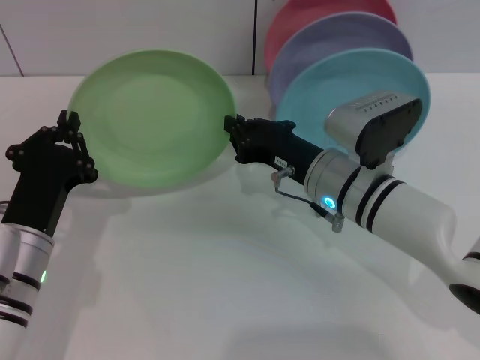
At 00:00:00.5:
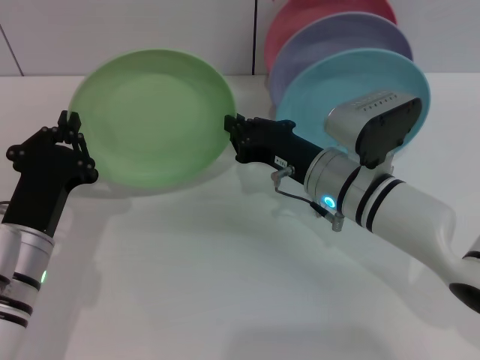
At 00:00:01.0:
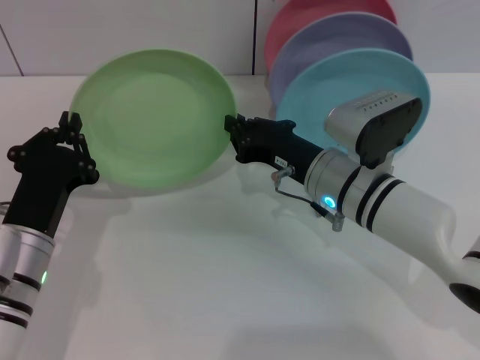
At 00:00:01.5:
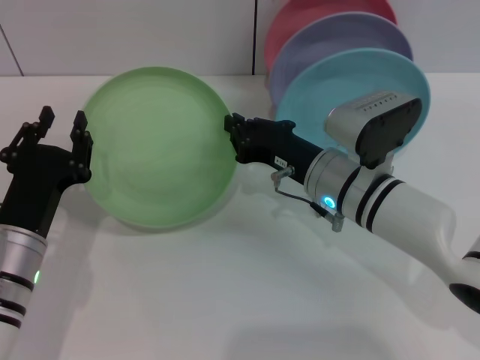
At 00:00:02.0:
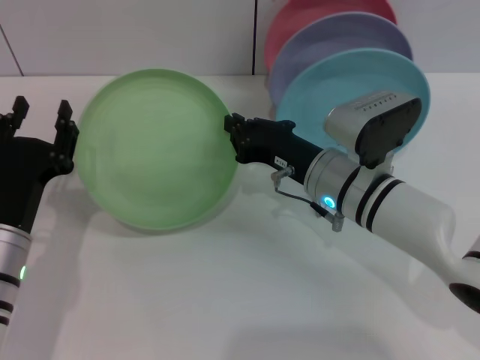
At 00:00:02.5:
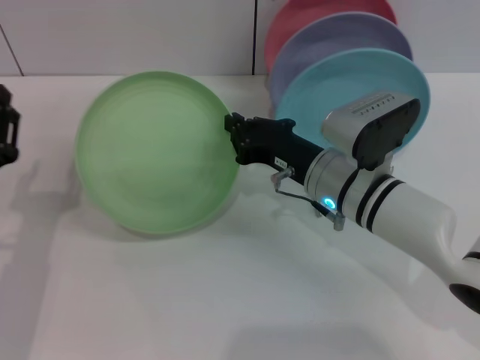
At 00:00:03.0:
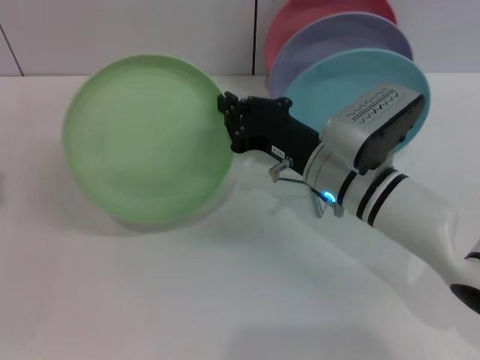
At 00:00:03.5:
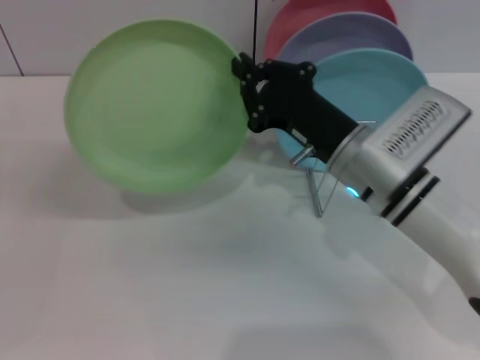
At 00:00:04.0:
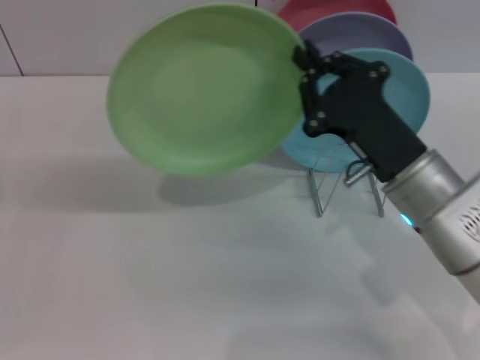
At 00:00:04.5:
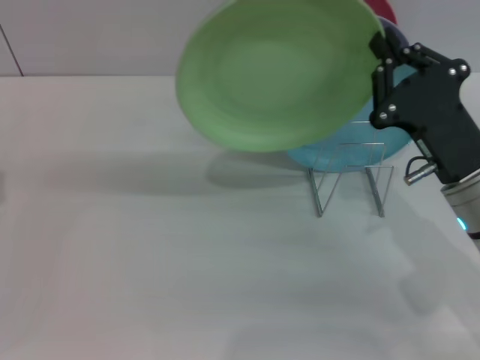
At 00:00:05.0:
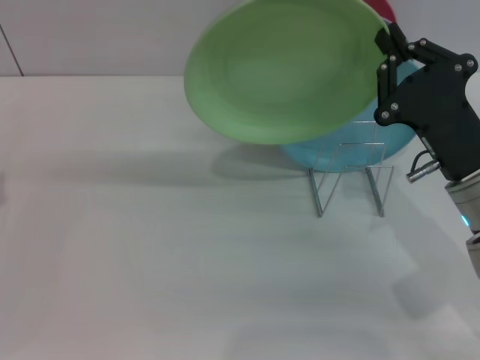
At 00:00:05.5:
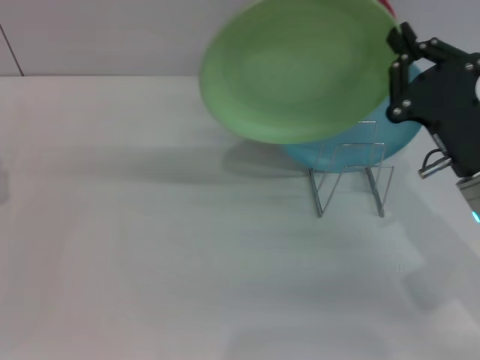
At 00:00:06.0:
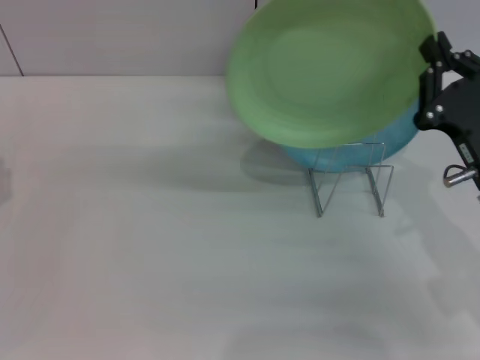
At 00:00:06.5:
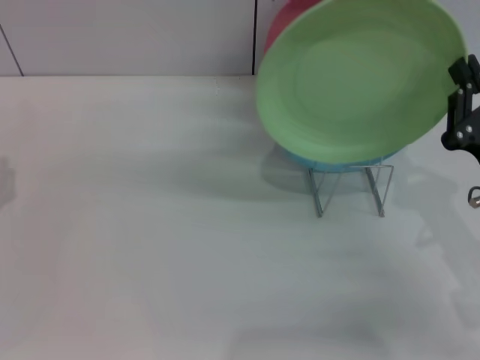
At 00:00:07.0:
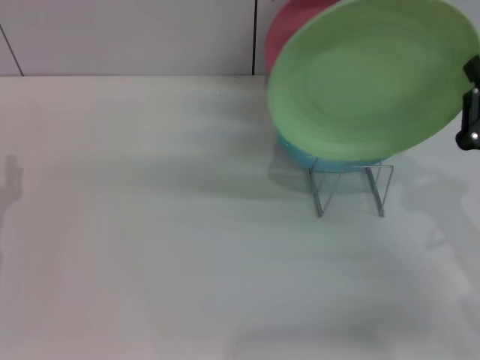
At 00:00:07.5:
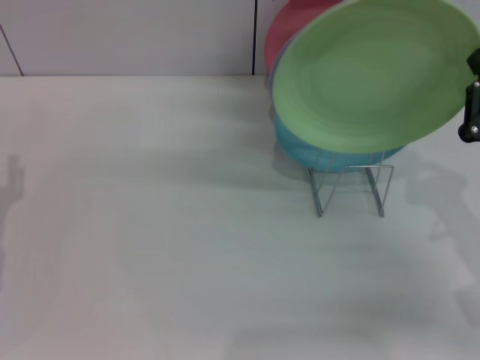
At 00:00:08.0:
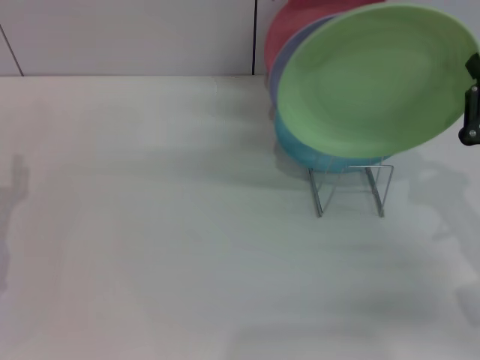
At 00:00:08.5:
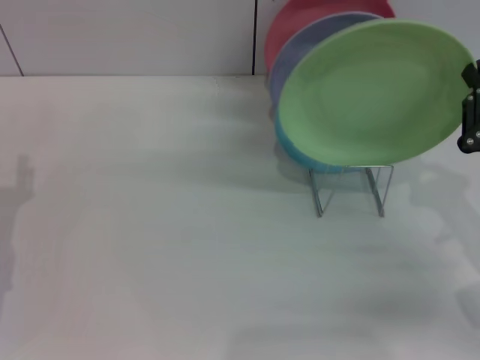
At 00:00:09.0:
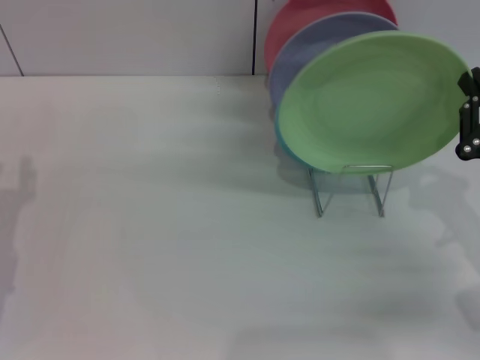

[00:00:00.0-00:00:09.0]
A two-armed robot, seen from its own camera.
Task of the whole recording: Grip the plate with one hand, pass it to the other, then set it on the shelf.
Step, 00:00:00.0 to 00:00:02.0: Pass the plate from the left gripper to the right gripper.
00:00:00.0 to 00:00:02.0: The left gripper opens its fingers.
00:00:02.0 to 00:00:04.5: The left gripper heads to the left, covering roughly 10 cm. The right gripper travels to the right and backward by approximately 10 cm.
00:00:04.5 to 00:00:07.0: The right gripper moves to the right, about 5 cm.
00:00:07.0 to 00:00:09.0: The grippers make only small movements.

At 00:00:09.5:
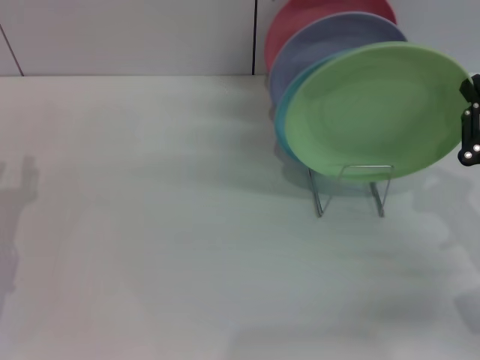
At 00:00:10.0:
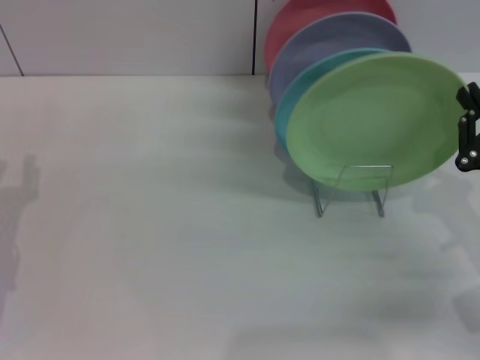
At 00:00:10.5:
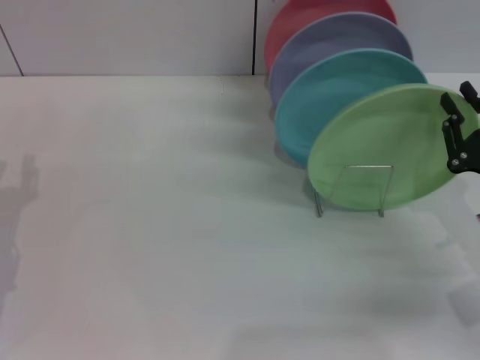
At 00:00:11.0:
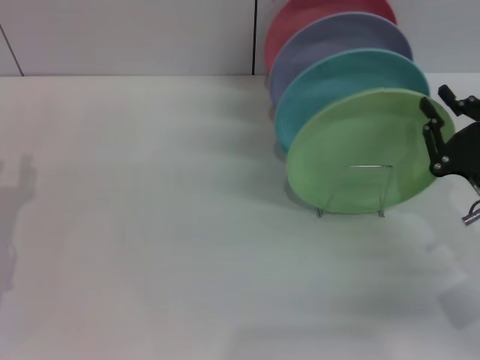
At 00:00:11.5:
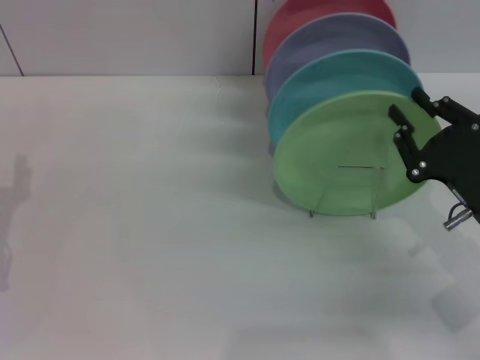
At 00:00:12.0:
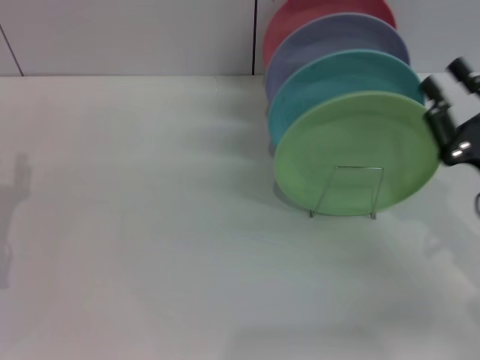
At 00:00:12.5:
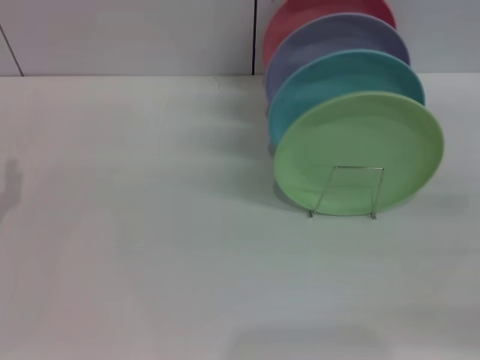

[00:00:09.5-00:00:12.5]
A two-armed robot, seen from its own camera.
Task of the whole recording: Grip the plate with one hand, pass it to the other, then set it on the shelf.
Step, 00:00:09.5 to 00:00:12.0: Place the plate on the shelf with the right gripper.
00:00:09.5 to 00:00:11.0: The grippers move only a little.
00:00:11.0 to 00:00:12.5: The right gripper shifts roughly 10 cm to the right.

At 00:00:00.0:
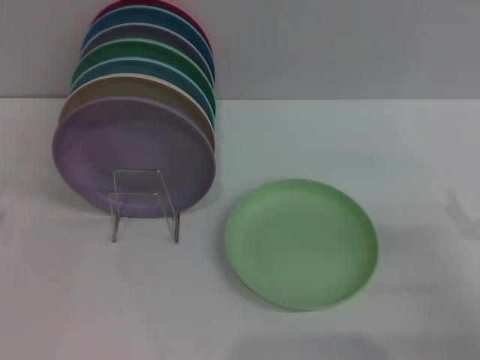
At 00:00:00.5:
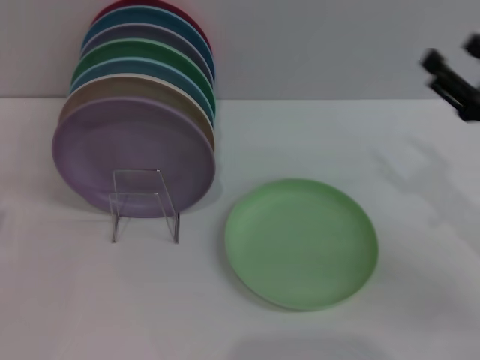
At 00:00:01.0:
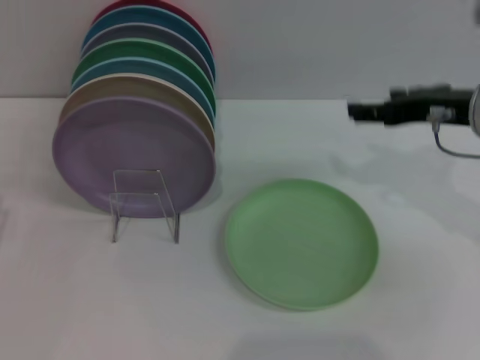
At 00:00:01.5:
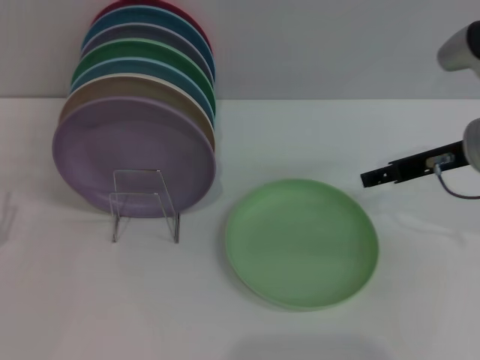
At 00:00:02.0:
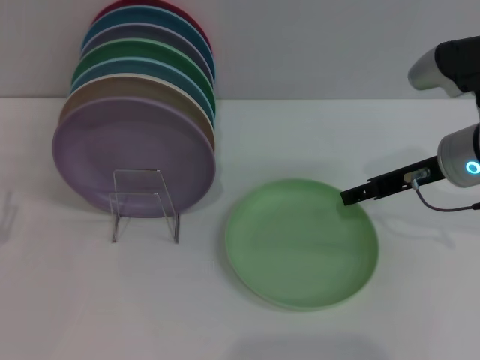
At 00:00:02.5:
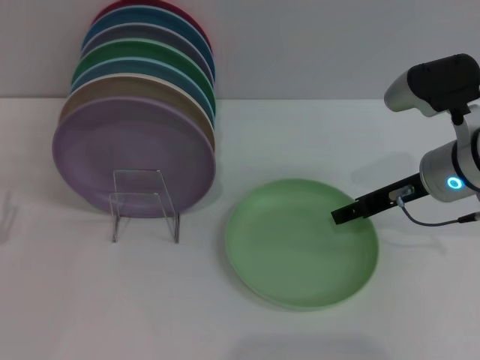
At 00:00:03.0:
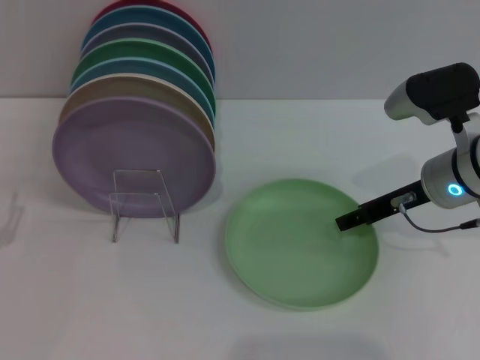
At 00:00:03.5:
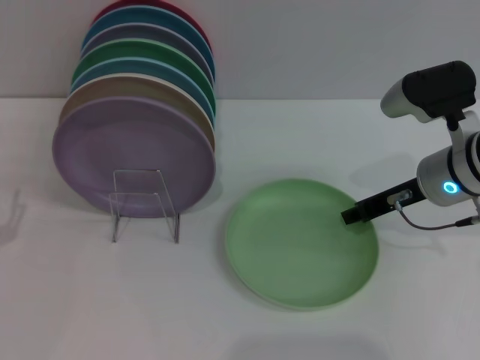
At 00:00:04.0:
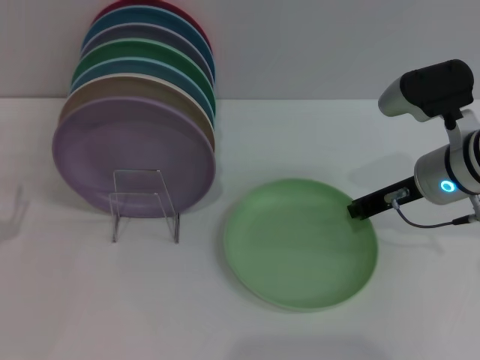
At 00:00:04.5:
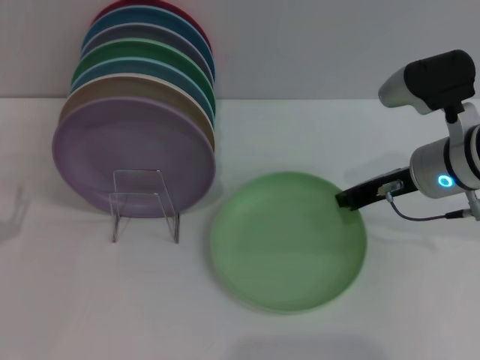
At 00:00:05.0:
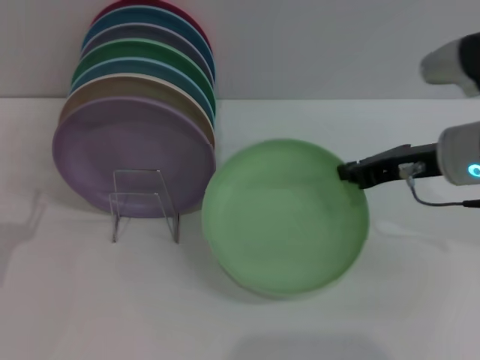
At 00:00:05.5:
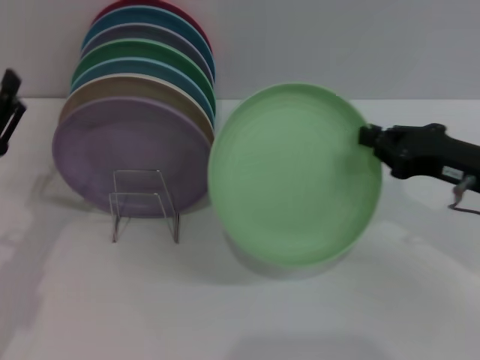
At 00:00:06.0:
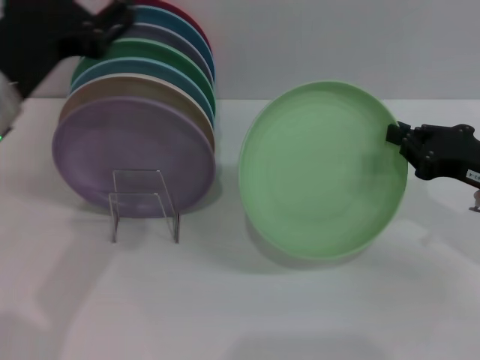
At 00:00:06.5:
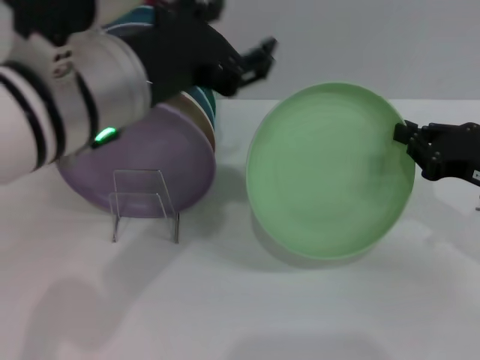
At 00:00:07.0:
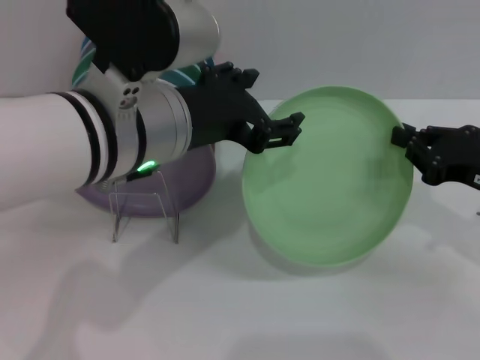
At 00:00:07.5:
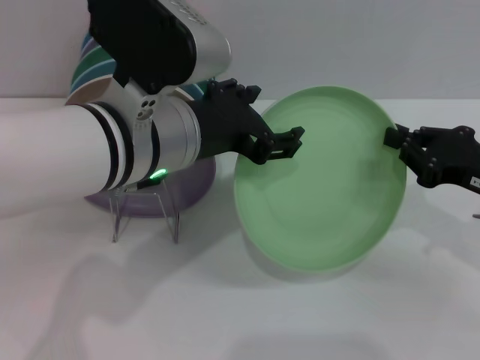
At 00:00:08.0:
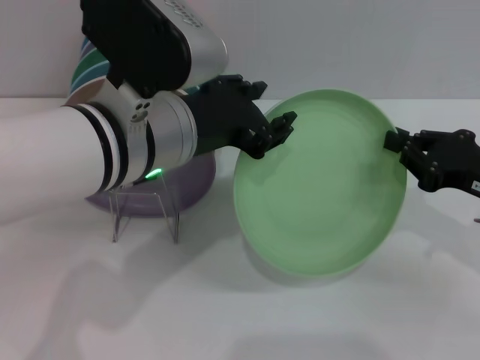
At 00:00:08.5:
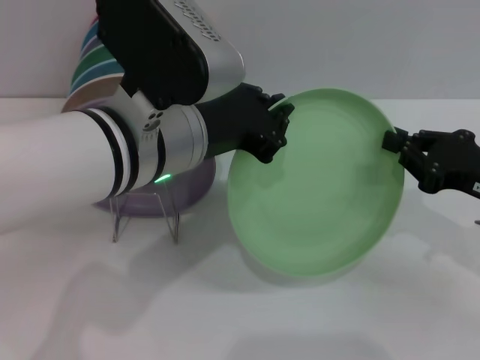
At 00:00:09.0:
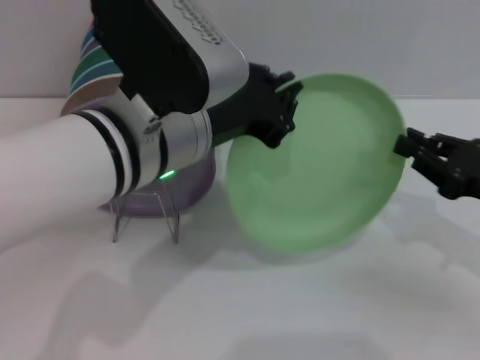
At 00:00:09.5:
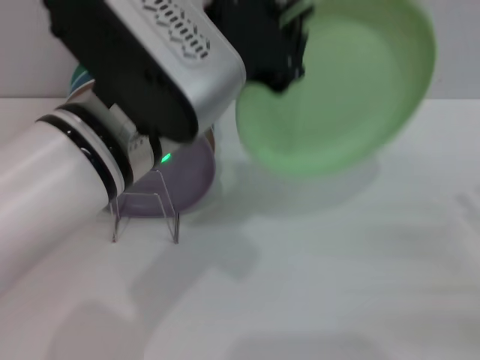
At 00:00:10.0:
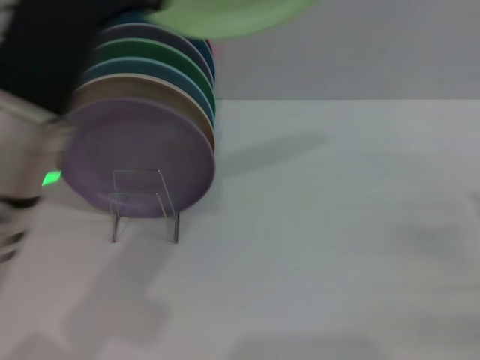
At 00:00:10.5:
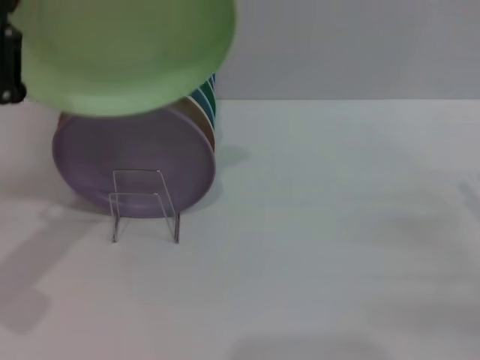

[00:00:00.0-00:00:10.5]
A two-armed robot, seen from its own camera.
Task of the whole recording: Grip the plate with one hand, pass it to the other, then set it on the shelf.
Step, 00:00:00.0 to 00:00:05.0: Pick up the plate with the right gripper.
Step, 00:00:05.5 to 00:00:09.0: Pass the plate from the right gripper to the left gripper.
00:00:00.0 to 00:00:02.0: The right gripper heads forward, to the left and upward, covering approximately 20 cm.
00:00:02.0 to 00:00:04.0: The right gripper closes.
00:00:04.0 to 00:00:06.5: The right gripper shifts roughly 10 cm to the right and backward. The left gripper goes some 30 cm upward and to the right.
00:00:06.5 to 00:00:08.5: The left gripper ends up approximately 5 cm from where it was, and closes its fingers.
00:00:08.5 to 00:00:10.5: The left gripper goes roughly 20 cm to the left. Meanwhile the right gripper goes some 10 cm to the right and backward, and opens up.

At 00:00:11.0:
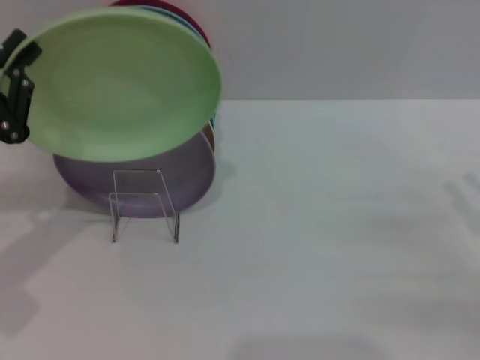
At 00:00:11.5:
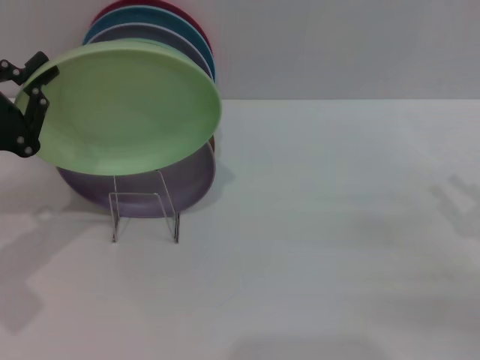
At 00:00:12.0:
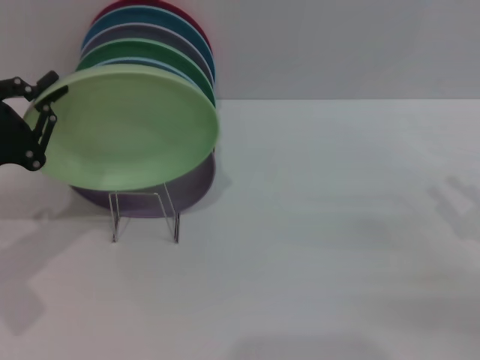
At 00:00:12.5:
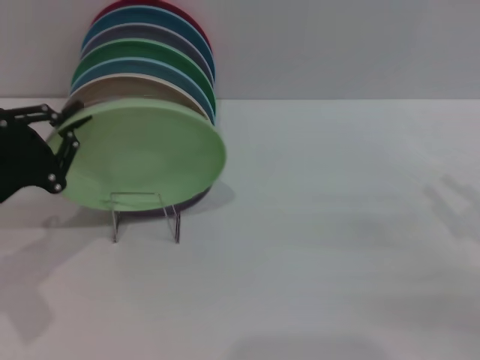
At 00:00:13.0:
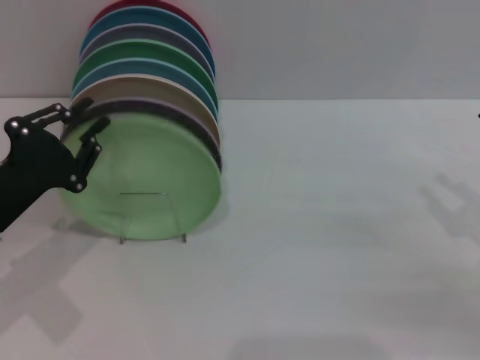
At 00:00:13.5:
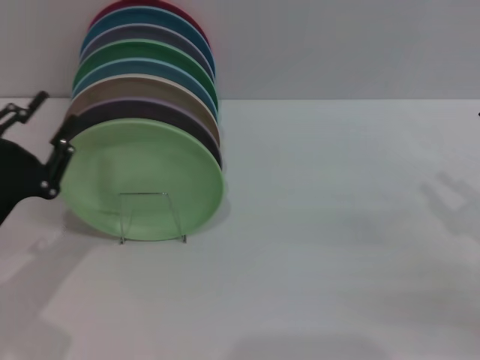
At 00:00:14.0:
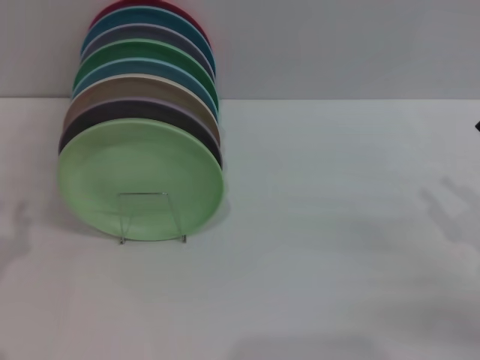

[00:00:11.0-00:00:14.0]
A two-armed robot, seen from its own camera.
Task of the whole recording: Grip the plate with one hand, pass it to the other, then set it on the shelf.
Step, 00:00:11.0 to 00:00:13.5: Place the plate on the shelf with the left gripper.
00:00:11.0 to 00:00:12.5: The grippers move only a little.
00:00:12.5 to 00:00:14.0: The left gripper shifts roughly 10 cm backward, and opens up.
